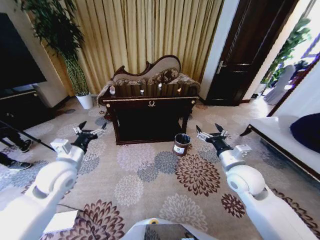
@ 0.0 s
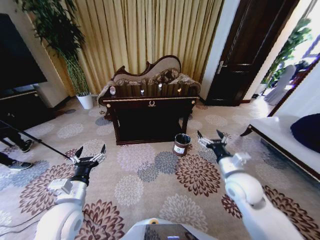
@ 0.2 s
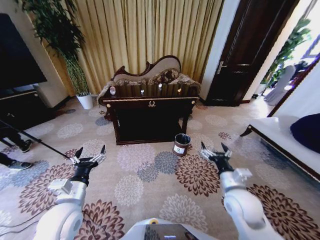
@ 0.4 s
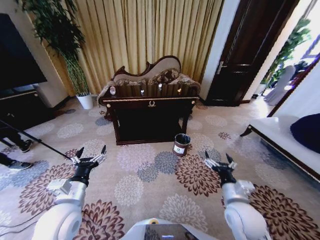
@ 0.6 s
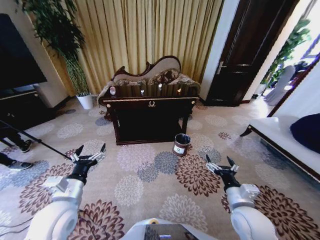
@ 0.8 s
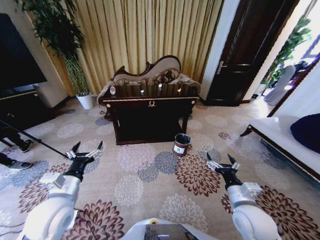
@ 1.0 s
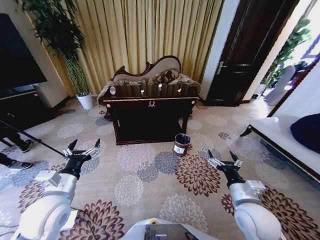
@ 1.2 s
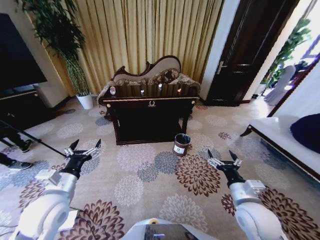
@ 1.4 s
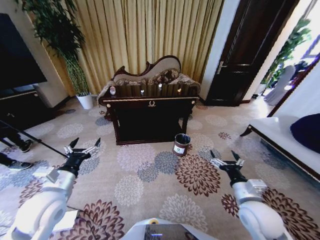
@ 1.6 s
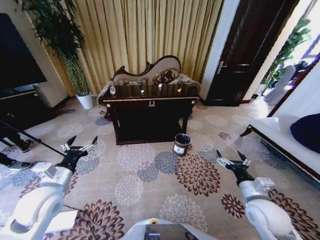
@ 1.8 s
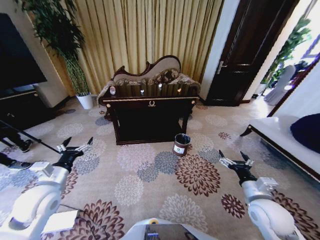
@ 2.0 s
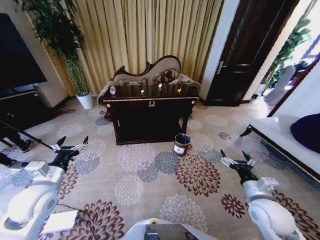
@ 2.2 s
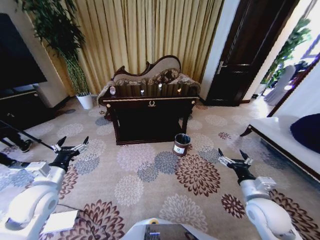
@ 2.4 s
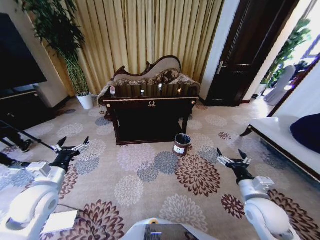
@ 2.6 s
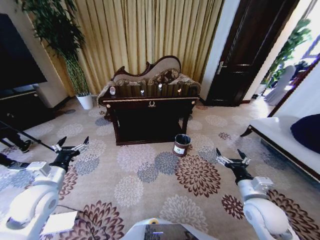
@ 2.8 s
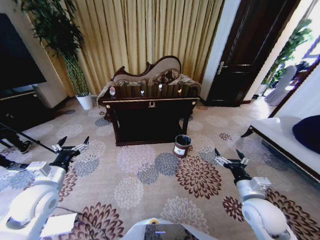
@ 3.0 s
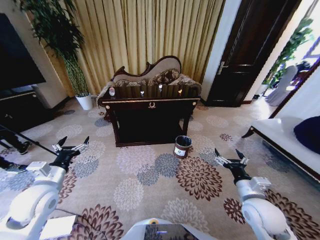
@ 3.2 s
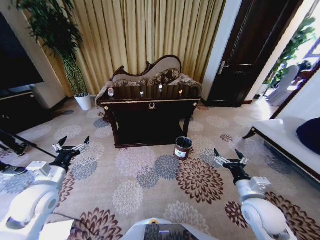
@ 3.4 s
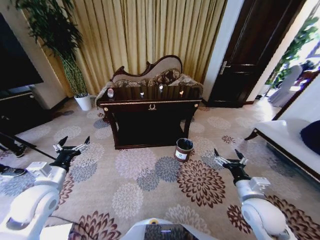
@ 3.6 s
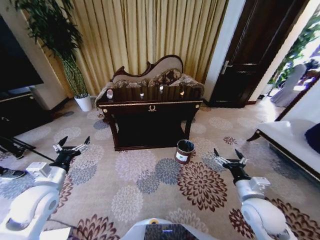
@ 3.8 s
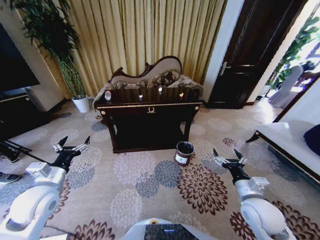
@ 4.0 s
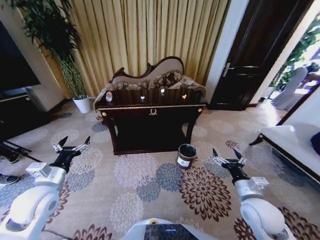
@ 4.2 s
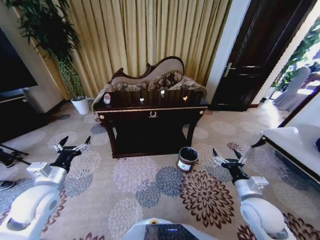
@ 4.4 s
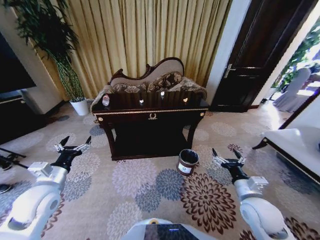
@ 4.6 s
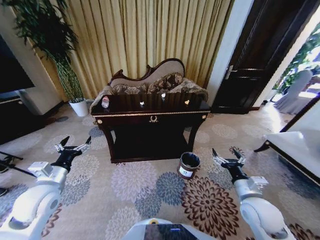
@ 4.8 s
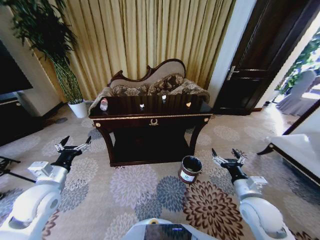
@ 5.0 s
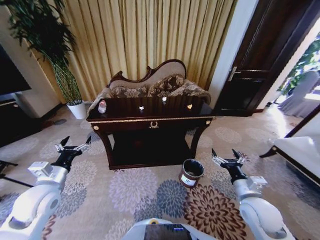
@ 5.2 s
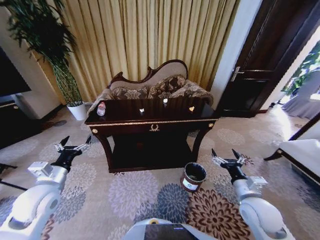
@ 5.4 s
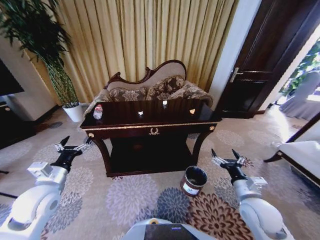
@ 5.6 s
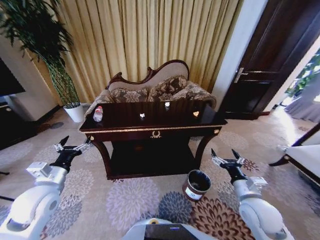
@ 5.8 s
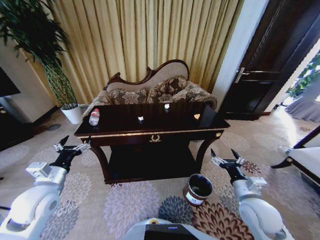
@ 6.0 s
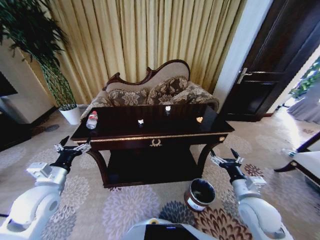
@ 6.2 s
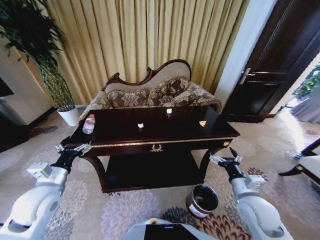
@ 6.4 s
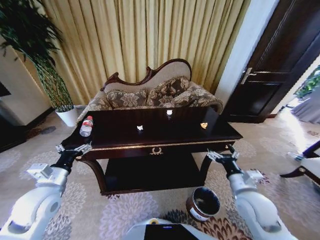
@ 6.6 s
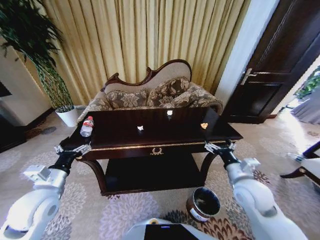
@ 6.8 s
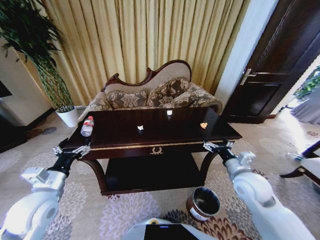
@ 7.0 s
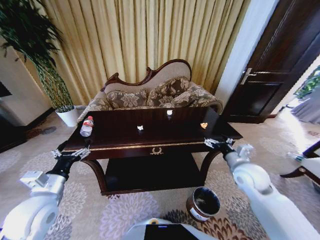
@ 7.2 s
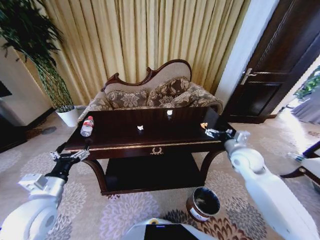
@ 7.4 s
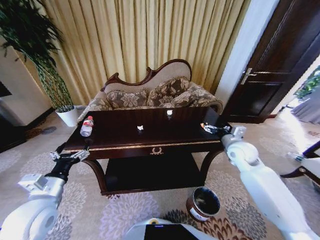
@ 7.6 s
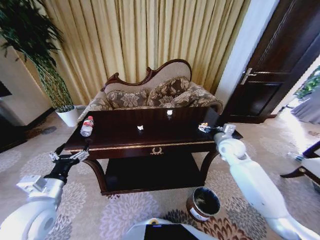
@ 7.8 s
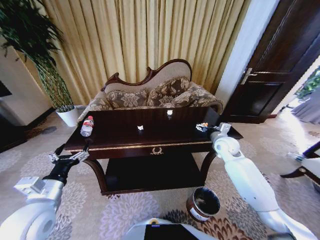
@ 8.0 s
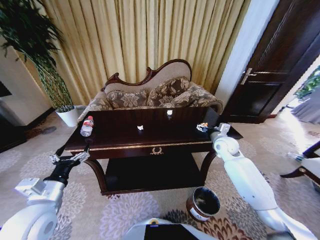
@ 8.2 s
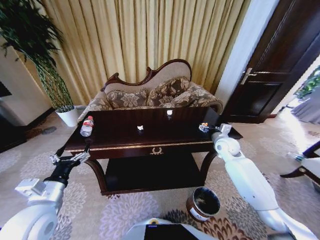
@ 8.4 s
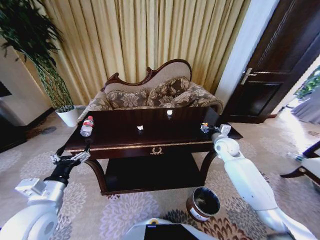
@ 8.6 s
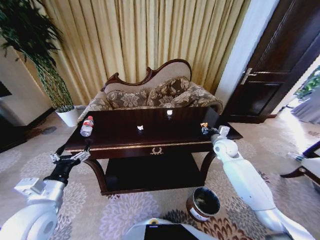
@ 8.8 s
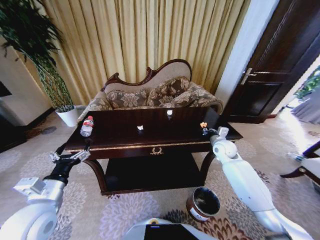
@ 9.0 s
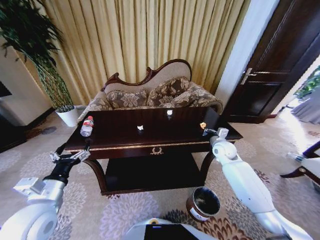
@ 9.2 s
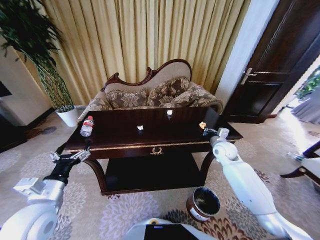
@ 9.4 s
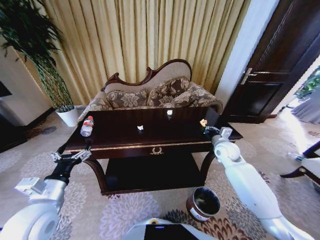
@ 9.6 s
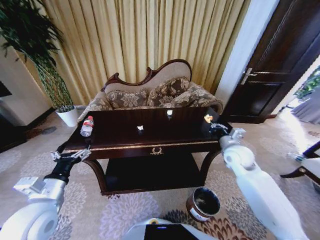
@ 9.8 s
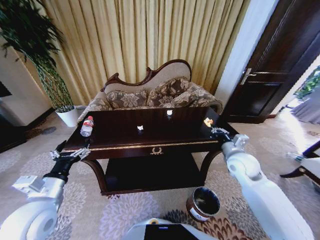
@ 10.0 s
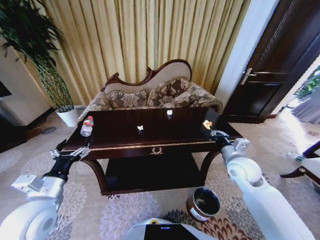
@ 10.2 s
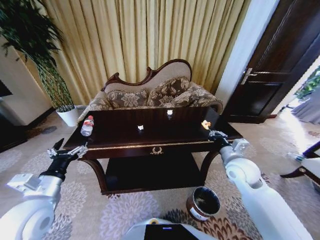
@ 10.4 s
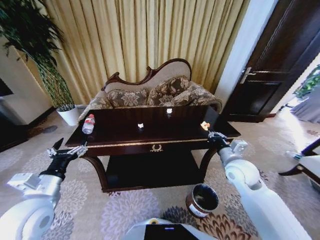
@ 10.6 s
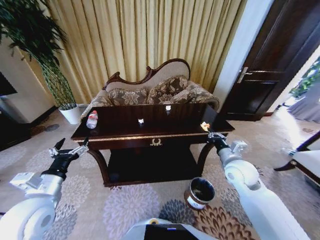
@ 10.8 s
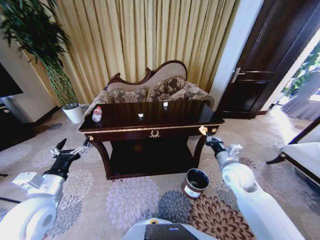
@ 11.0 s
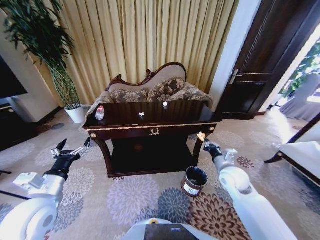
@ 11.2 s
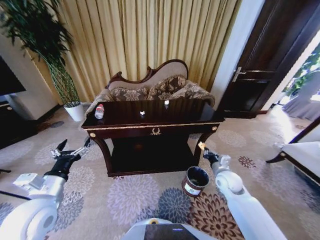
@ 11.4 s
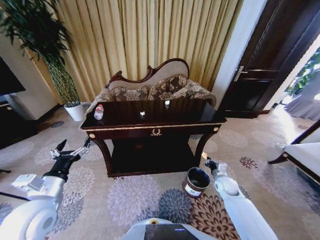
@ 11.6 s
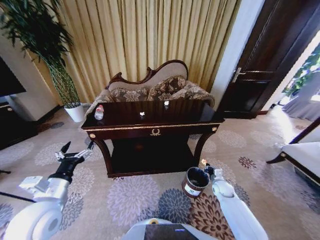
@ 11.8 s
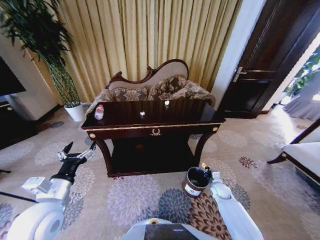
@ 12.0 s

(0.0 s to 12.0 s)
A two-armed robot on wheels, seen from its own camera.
Task of the whole recording: Move to the front of the table and place the trash on the table into the trash bin.
1.6 s - 3.0 s: The left gripper changes place by roughly 5 cm.
6.0 s - 7.6 s: The right gripper is displaced forward by roughly 20 cm.
7.6 s - 9.0 s: The right gripper heads downward and forward, covering roughly 10 cm, and closes up.
9.0 s - 10.4 s: The right gripper heads backward, covering about 15 cm.
10.4 s - 12.0 s: The right gripper moves downward, roughly 30 cm.

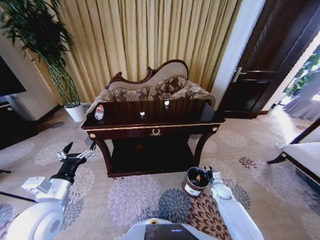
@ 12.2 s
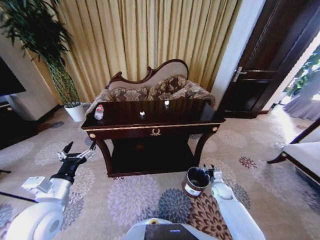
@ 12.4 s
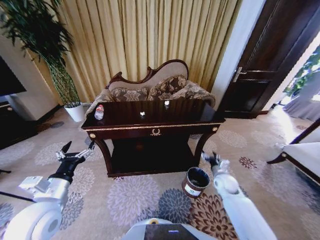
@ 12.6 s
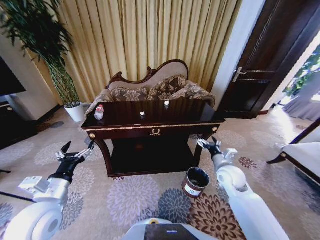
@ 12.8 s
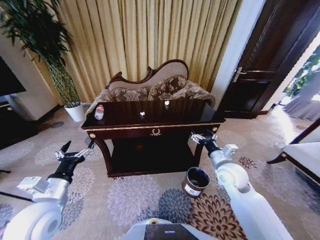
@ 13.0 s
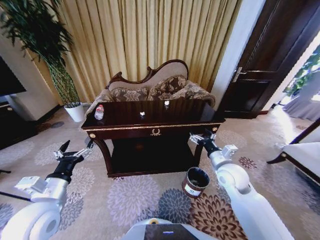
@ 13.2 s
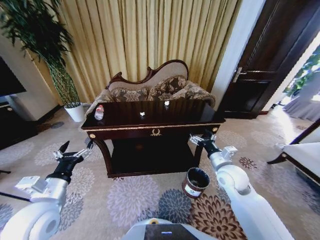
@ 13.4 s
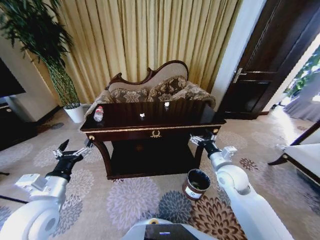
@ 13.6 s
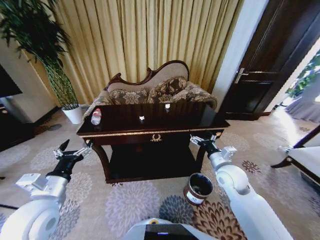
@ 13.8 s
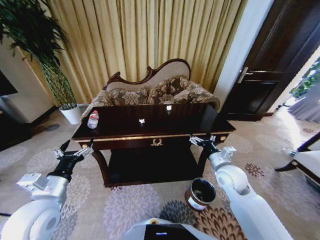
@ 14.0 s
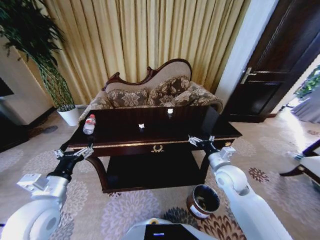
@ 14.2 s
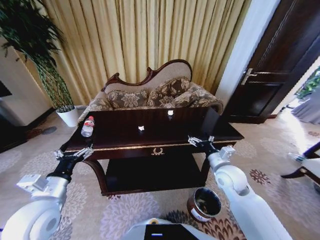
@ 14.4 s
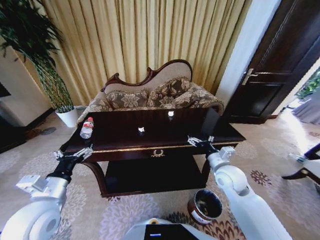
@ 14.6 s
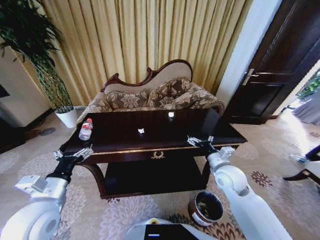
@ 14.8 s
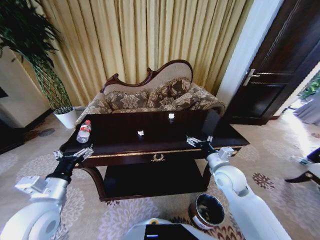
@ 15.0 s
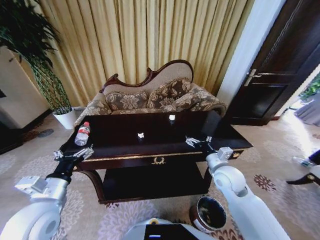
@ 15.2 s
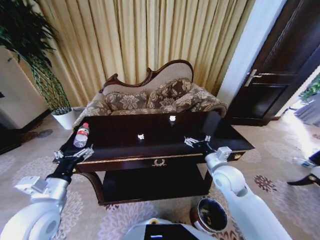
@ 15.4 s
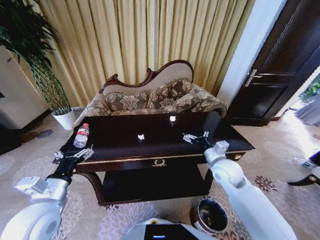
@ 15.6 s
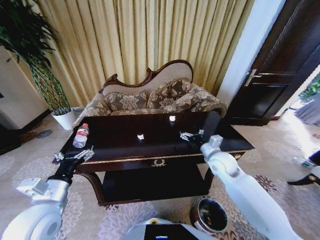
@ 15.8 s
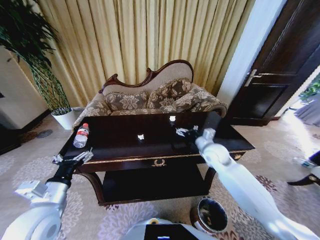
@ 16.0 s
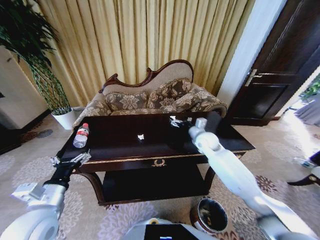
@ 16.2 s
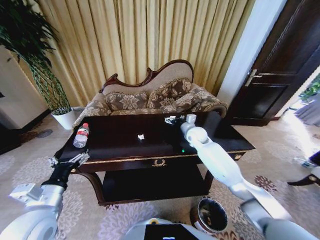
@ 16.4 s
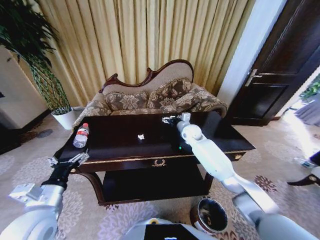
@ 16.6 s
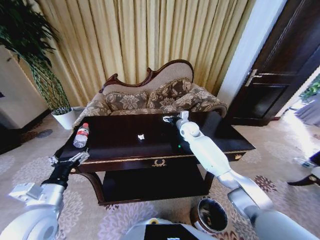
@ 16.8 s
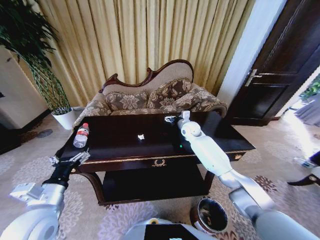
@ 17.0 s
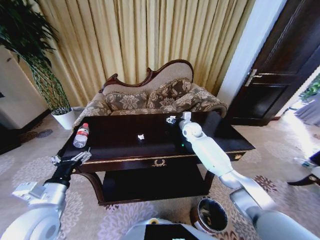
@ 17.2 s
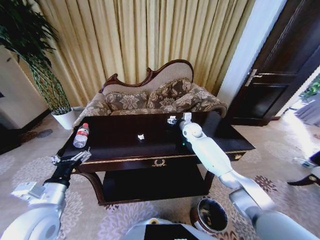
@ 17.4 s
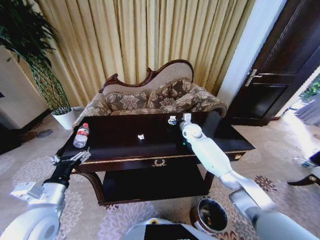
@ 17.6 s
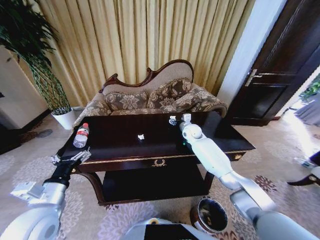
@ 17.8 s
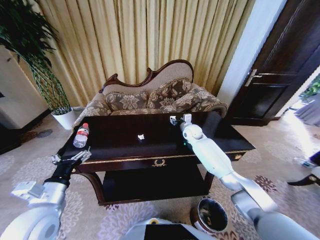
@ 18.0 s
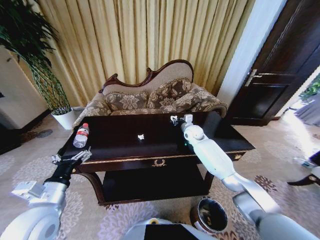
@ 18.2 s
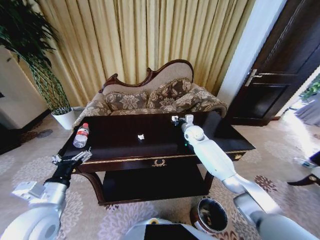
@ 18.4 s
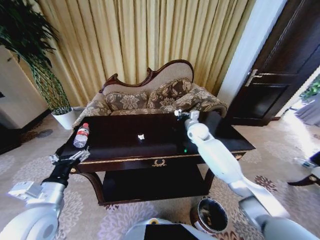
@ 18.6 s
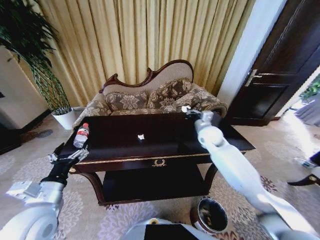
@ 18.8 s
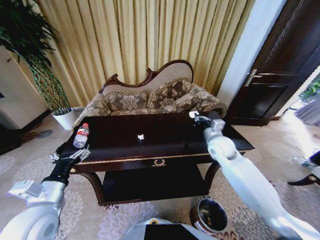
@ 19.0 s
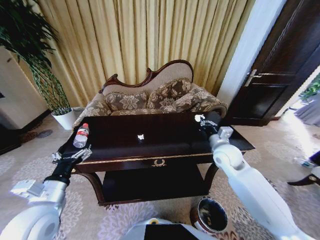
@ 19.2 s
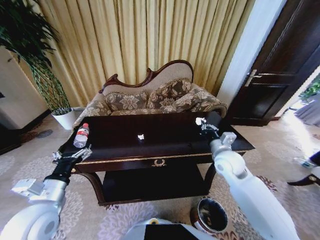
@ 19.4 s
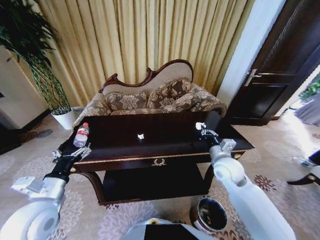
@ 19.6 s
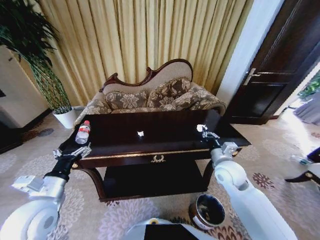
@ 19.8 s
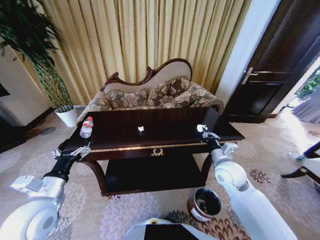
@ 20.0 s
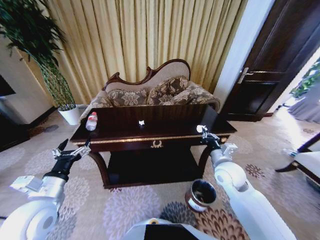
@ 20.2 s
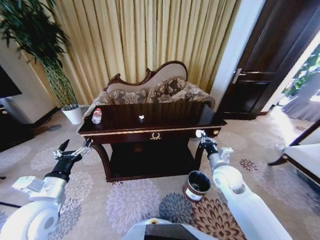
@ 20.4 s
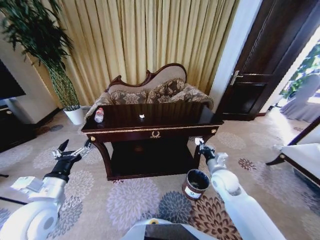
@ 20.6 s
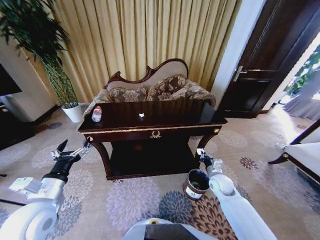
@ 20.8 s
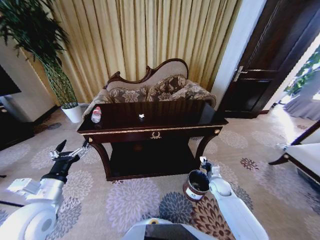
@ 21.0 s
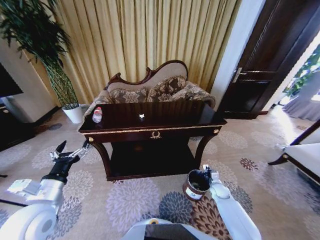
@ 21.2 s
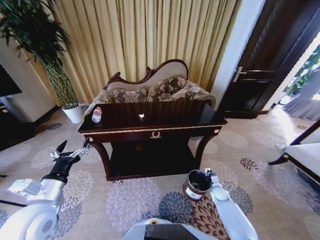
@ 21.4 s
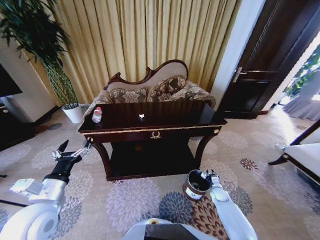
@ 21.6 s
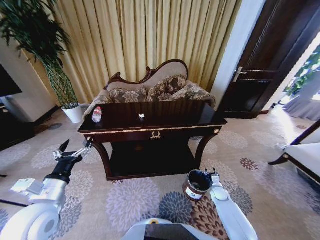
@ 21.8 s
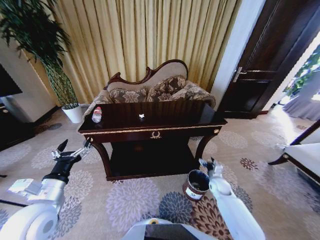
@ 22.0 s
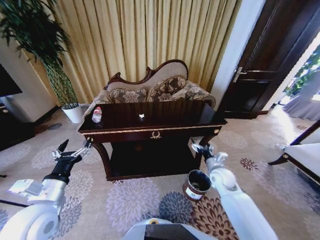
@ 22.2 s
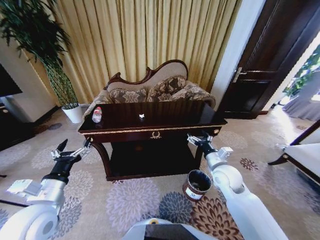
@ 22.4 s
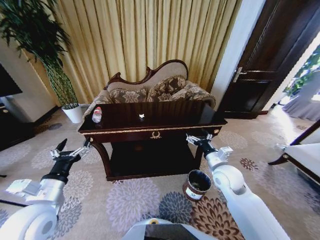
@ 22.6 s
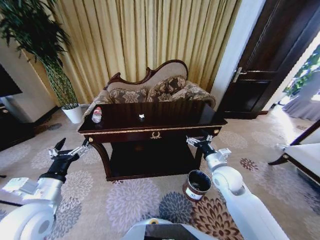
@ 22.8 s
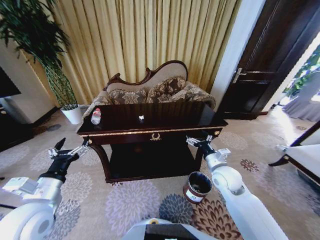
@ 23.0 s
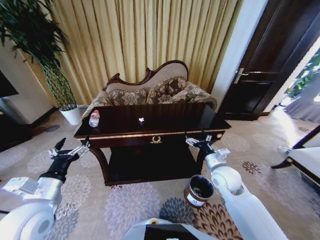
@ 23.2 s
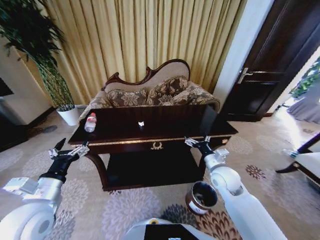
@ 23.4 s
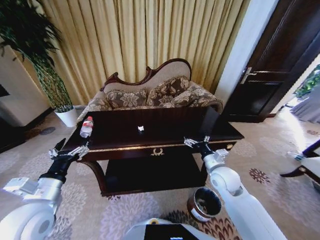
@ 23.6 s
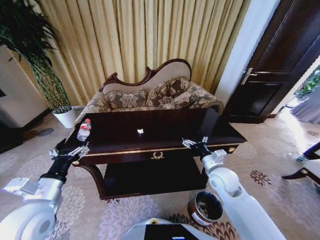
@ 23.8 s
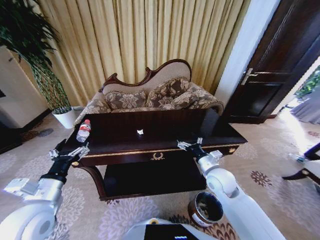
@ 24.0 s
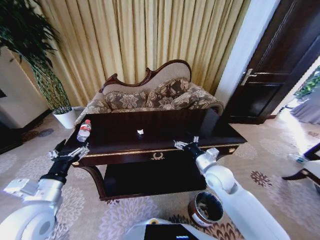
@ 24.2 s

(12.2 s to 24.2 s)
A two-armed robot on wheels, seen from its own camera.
Task of the whole recording: Move to the front of the table and place the trash on the table into the trash bin.
12.2 s - 13.8 s: The right gripper goes about 25 cm upward, and opens its fingers.
15.2 s - 16.6 s: The right gripper moves forward, some 25 cm.
16.6 s - 18.2 s: The right gripper closes its fingers.
18.2 s - 19.8 s: The right gripper shifts about 25 cm backward.
19.8 s - 21.2 s: The right gripper moves downward, roughly 30 cm.
21.2 s - 22.6 s: The right gripper is displaced upward by some 25 cm, and opens up.
